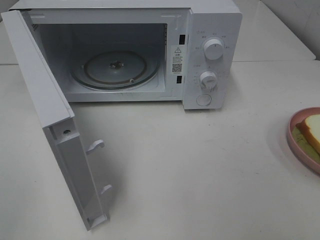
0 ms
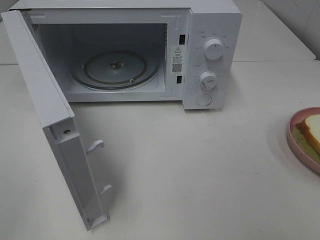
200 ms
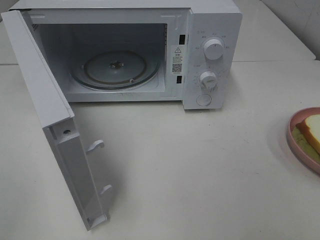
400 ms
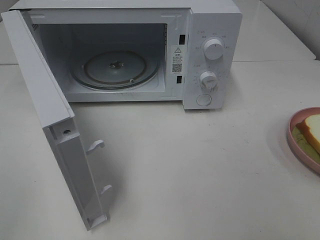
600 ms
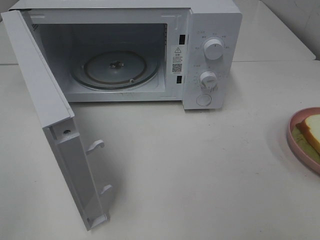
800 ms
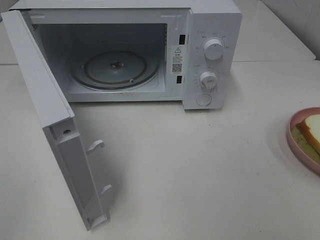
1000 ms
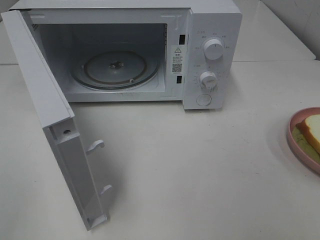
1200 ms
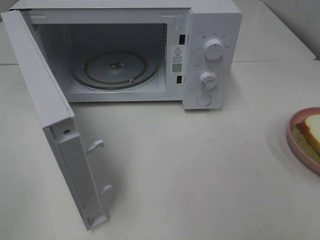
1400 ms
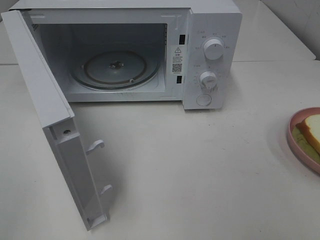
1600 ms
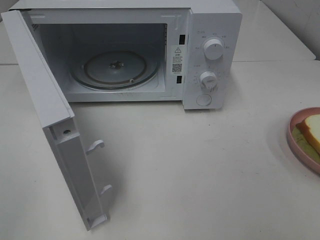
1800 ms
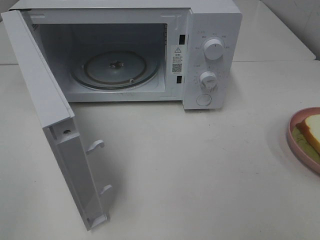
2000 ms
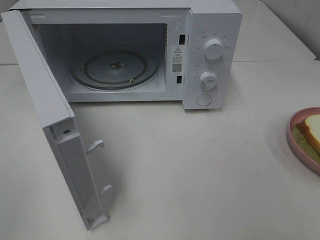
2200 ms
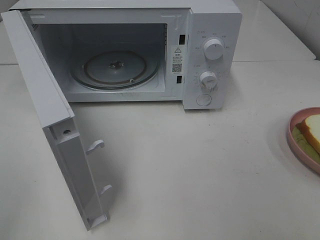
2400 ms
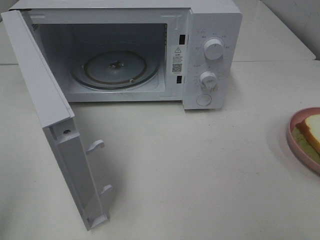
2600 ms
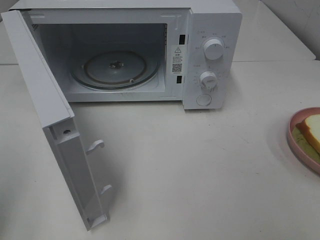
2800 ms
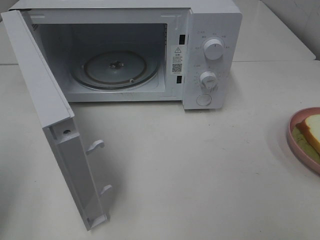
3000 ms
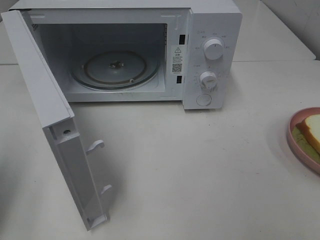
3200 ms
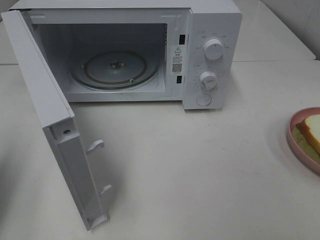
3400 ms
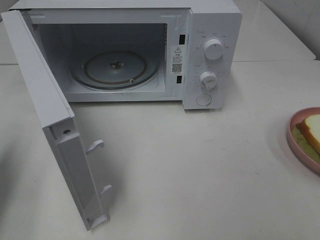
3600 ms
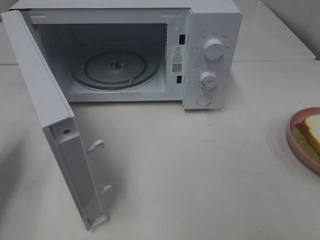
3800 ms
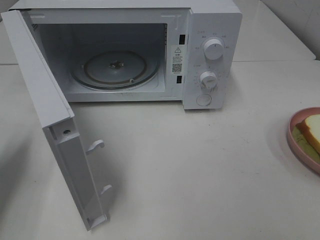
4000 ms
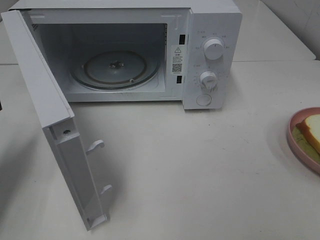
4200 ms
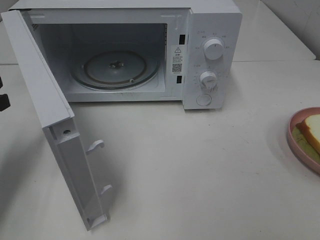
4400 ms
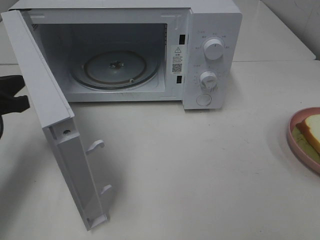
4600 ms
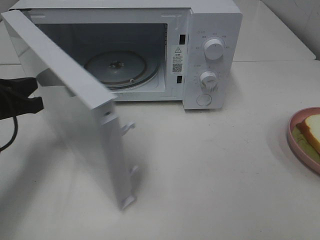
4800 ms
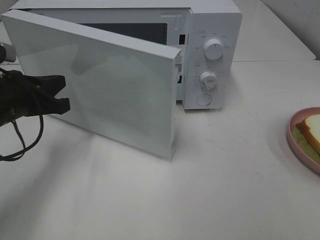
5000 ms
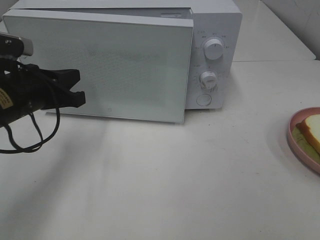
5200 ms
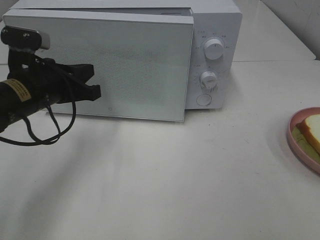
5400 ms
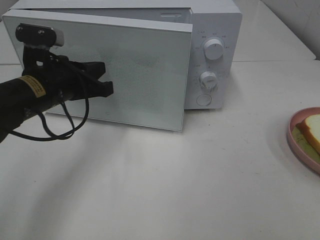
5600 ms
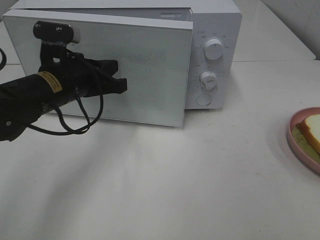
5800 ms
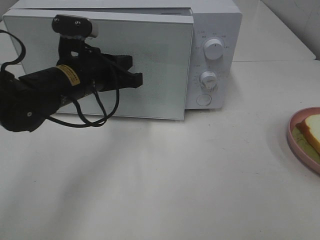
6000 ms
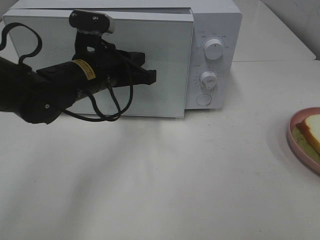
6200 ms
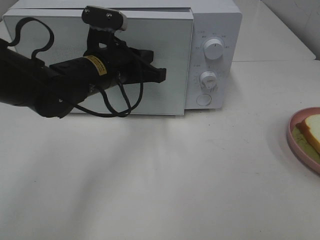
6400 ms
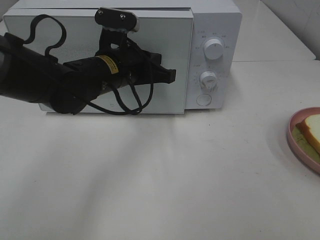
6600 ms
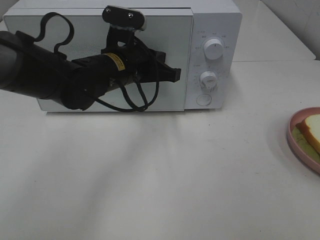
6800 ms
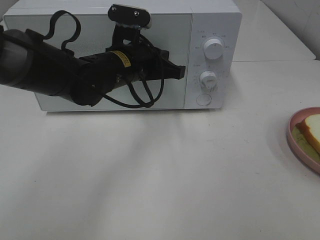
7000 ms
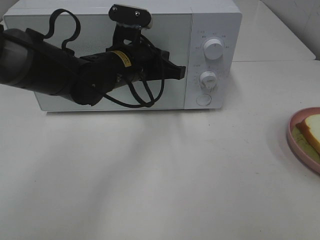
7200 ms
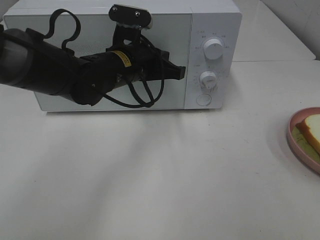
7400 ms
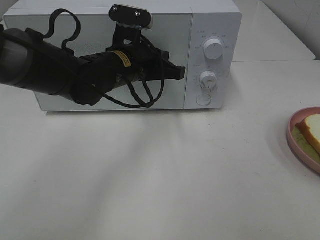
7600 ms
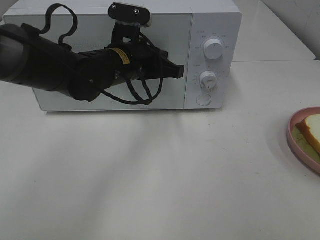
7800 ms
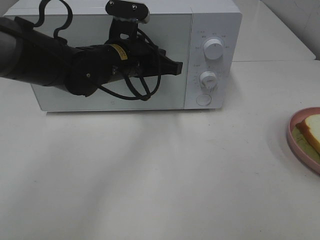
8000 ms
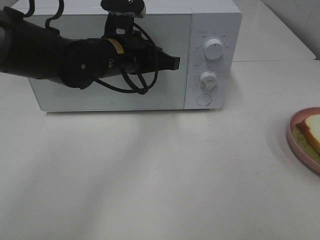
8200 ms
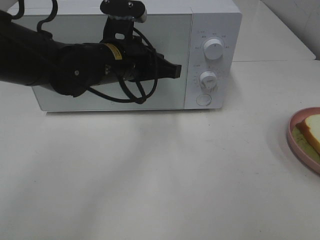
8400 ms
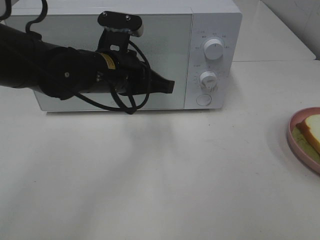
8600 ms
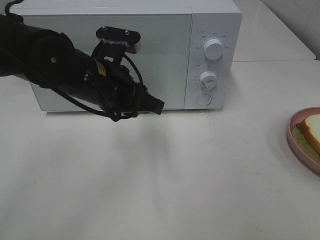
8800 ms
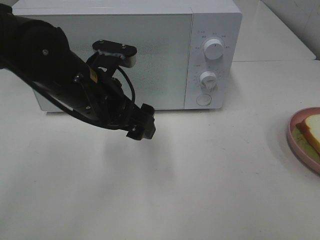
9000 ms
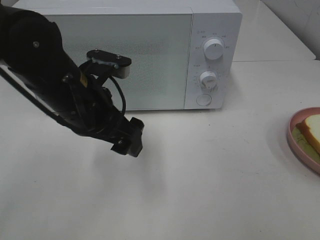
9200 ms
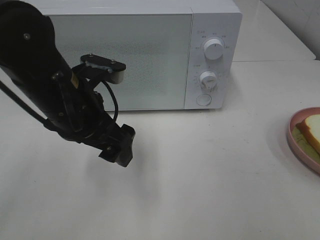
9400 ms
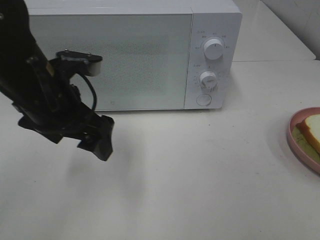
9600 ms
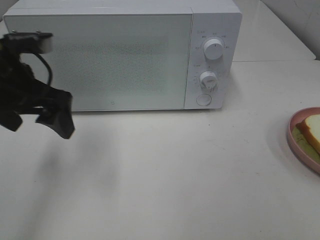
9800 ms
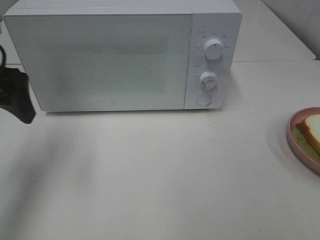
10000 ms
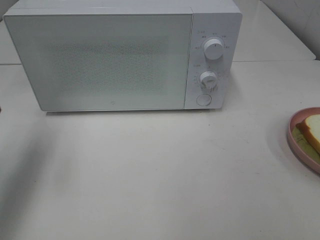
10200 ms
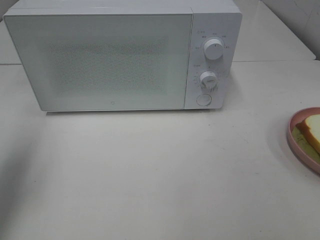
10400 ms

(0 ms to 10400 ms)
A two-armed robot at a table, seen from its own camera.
Task of the whole recording: Heat Sandwich.
Step, 0 ms - 8600 ms: Left hand: close the microwave door.
0 ms - 1400 ms: Both grippers stay put.
1400 ms - 3000 ms: The left gripper travels forward by about 10 cm, and closes.
3000 ms - 4400 ms: The left gripper heads forward and downward, covering approximately 20 cm.
4400 ms - 6000 ms: The left gripper shifts about 20 cm to the right.
6000 ms - 7400 ms: The left gripper is displaced to the right by roughly 5 cm.
7400 ms - 9000 ms: The left gripper goes some 10 cm backward, and opens its fingers.
9000 ms - 10400 ms: The left gripper travels to the left and upward by approximately 25 cm.

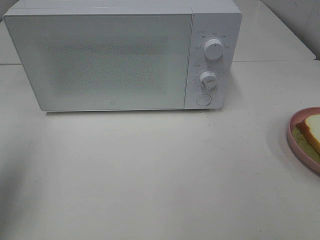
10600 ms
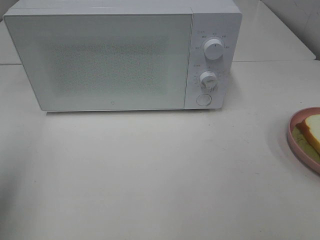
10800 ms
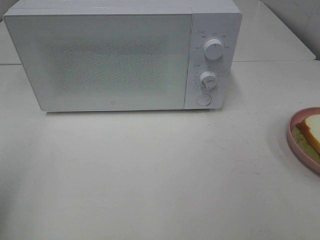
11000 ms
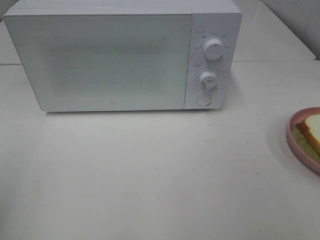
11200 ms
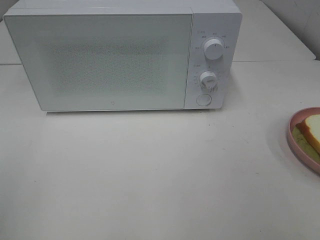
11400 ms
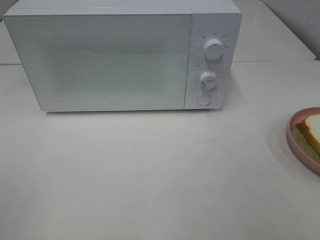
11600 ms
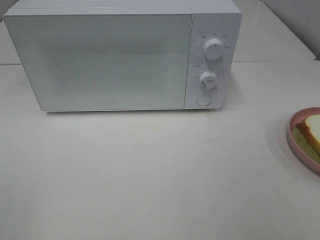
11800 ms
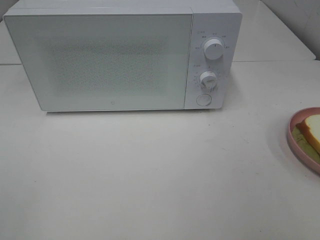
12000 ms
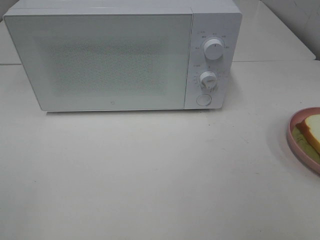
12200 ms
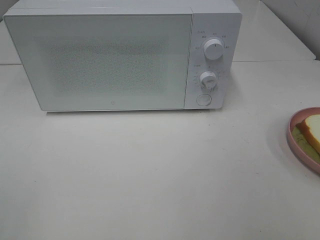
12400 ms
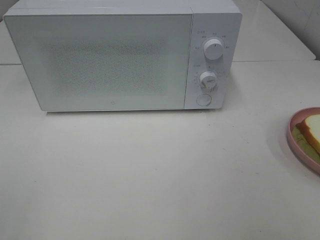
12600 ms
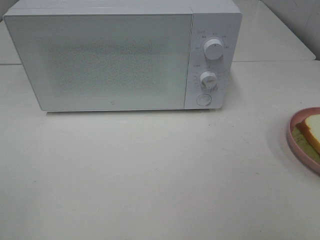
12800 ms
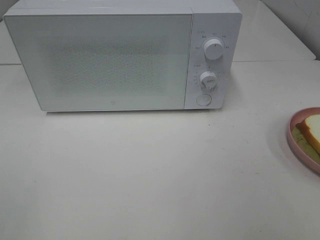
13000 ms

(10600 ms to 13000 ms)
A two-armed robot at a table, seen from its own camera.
Task of the whole recording: Heat Sandwich.
10600 ms - 11800 ms: The left gripper heads backward, covering some 20 cm.
11800 ms - 13000 ms: The two grippers keep their place.

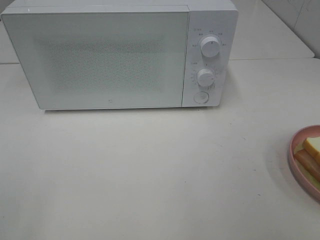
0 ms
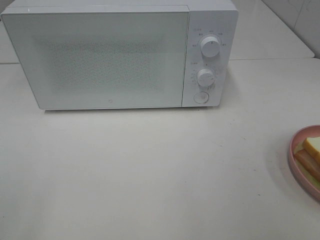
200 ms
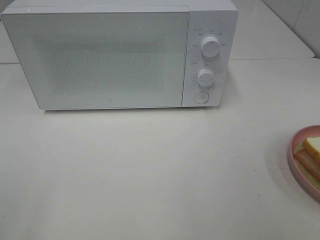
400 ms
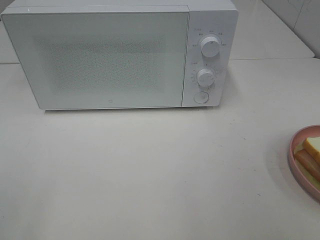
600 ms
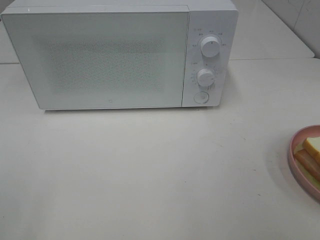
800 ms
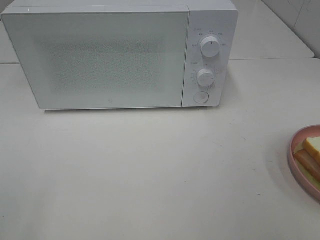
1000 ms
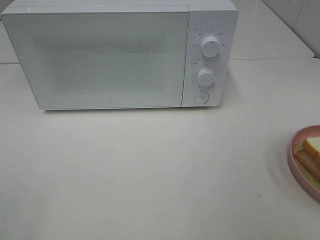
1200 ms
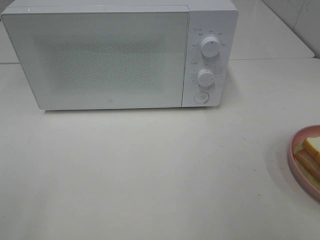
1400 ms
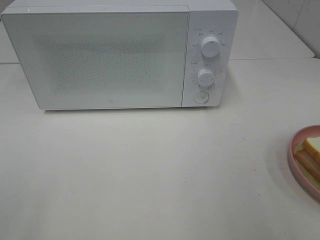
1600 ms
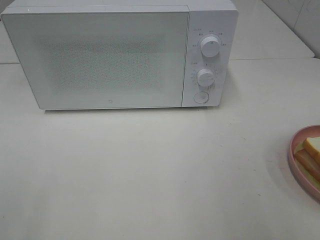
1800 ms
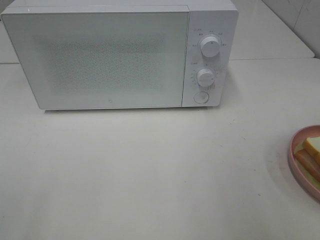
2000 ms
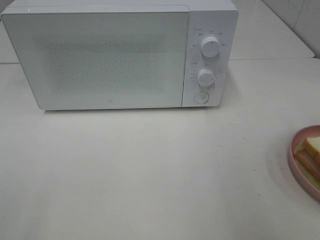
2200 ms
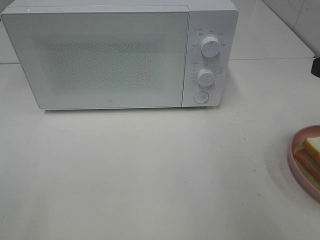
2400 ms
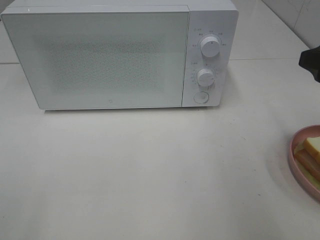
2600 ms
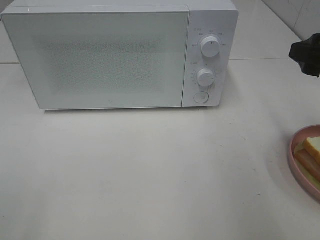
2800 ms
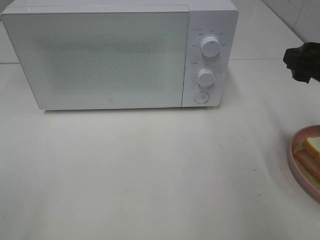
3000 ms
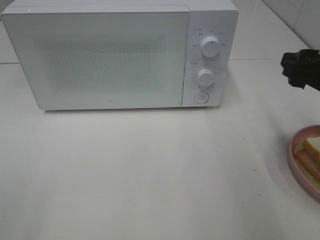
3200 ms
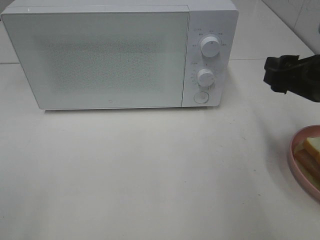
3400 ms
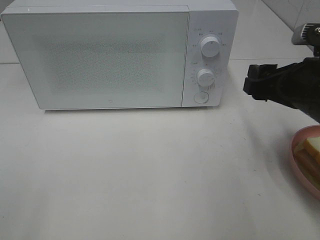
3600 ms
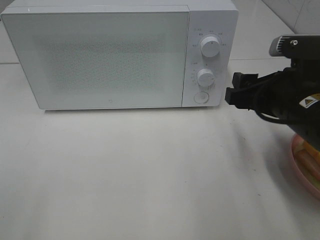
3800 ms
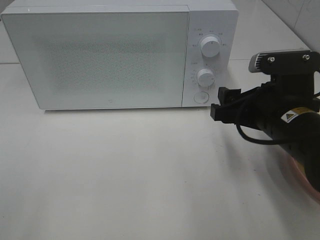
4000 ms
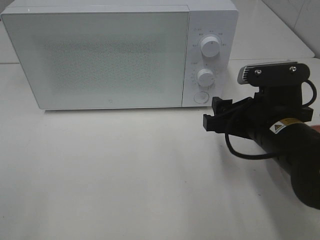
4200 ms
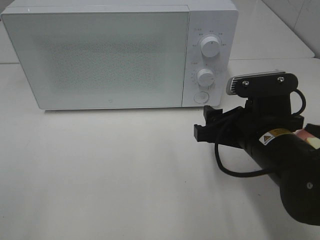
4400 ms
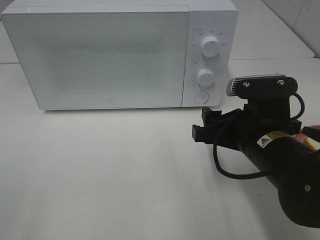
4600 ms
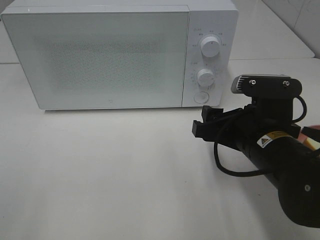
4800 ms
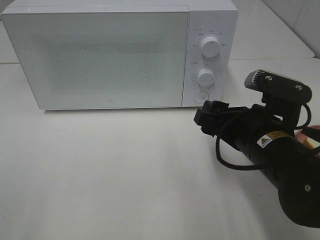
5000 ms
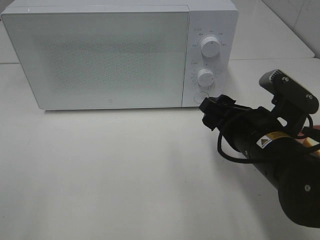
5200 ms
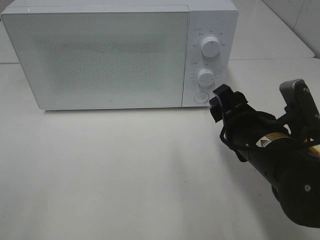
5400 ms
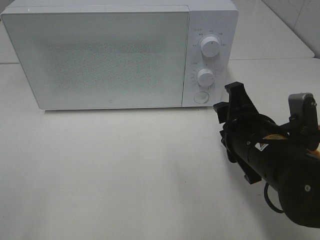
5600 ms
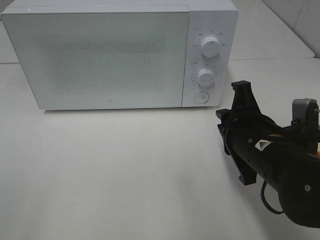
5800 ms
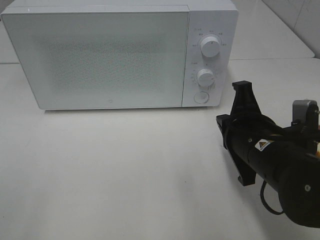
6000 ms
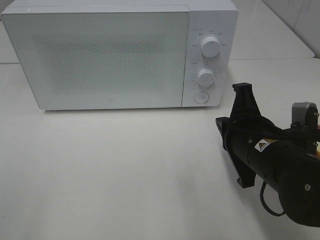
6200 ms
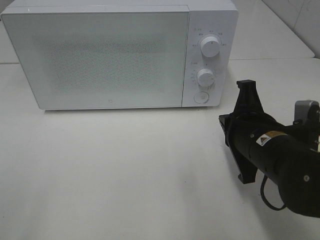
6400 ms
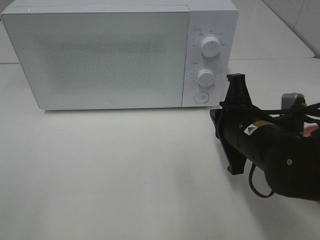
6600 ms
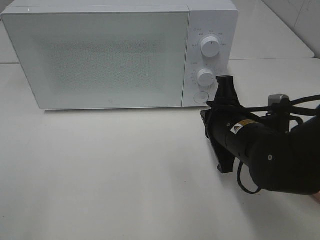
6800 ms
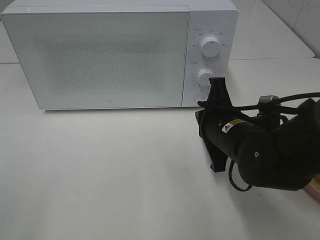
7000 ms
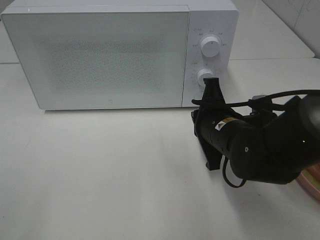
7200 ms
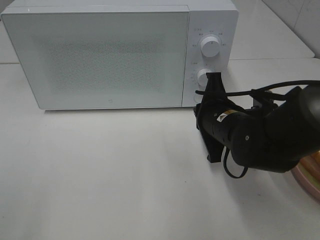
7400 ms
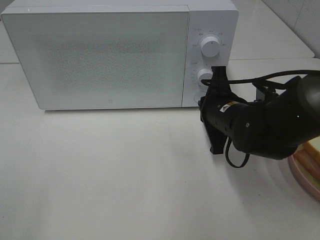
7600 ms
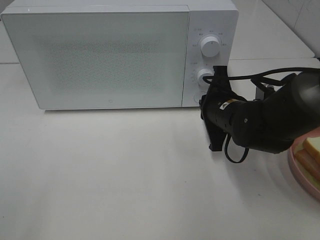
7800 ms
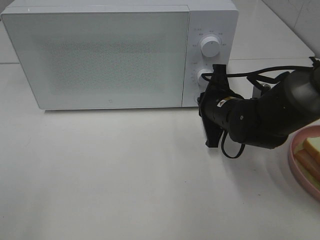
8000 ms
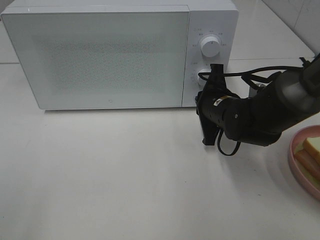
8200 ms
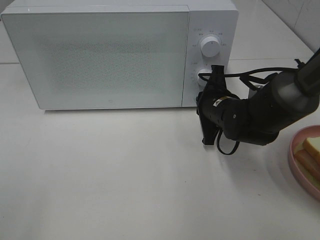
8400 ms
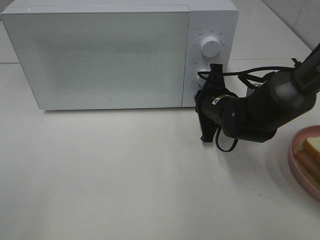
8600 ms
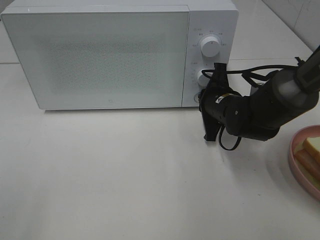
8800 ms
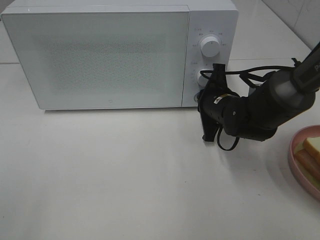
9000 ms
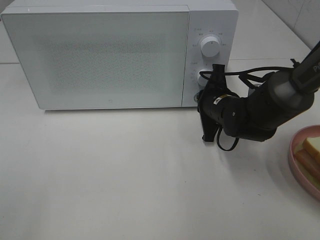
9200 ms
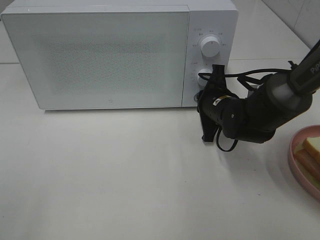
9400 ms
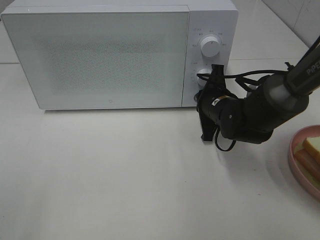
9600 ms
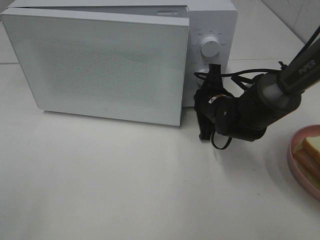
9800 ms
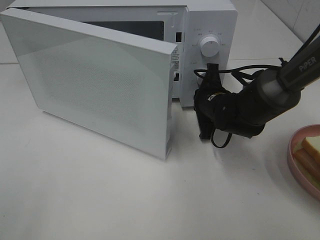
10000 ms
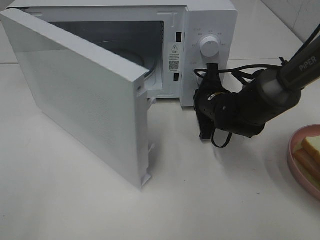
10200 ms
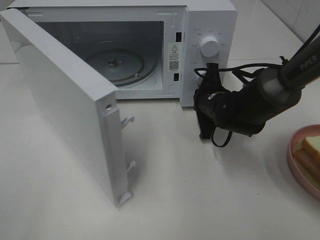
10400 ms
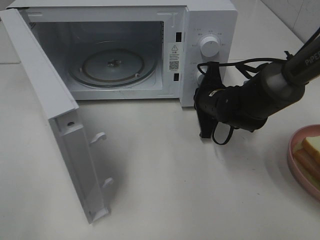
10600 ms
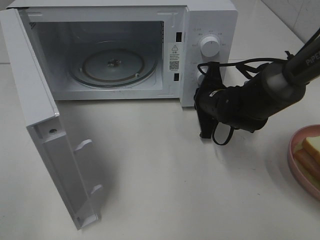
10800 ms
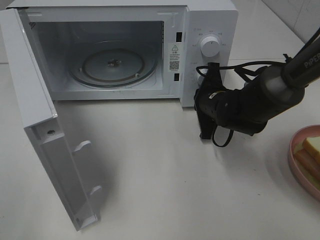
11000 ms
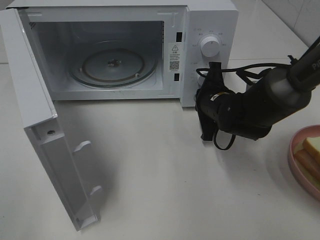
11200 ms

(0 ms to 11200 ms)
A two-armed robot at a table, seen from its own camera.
Task of the whole recording: Heat Sandwich.
1600 ms - 3200 ms: The right gripper goes roughly 20 cm forward and downward.
3200 ms - 4800 ms: The right gripper heads to the left and downward, covering about 15 cm.
4800 ms - 6400 ms: The right gripper closes.
6400 ms - 8000 ms: The right gripper moves forward, some 10 cm.
8000 ms - 9600 ms: The grippers stay close to where they were, moving slightly.
